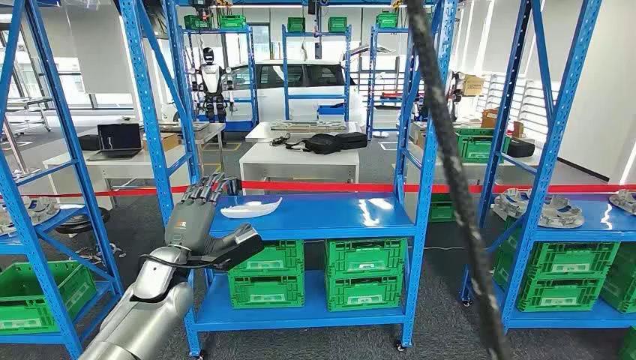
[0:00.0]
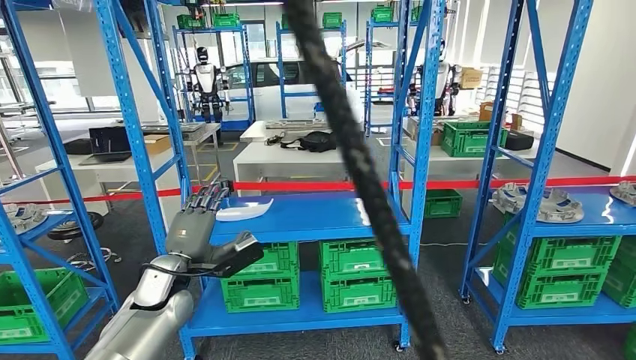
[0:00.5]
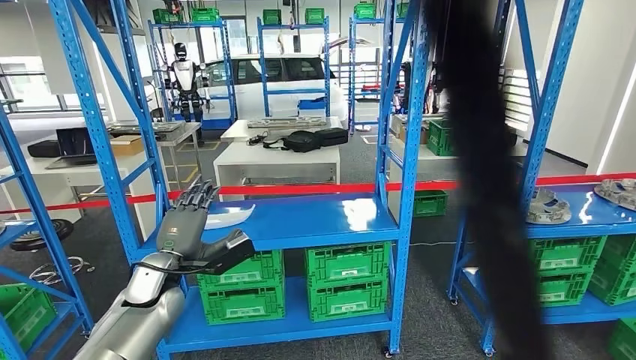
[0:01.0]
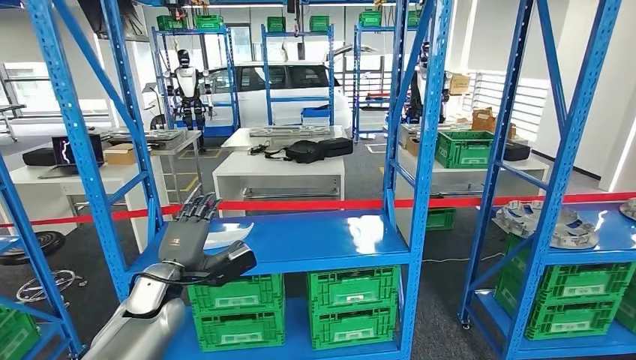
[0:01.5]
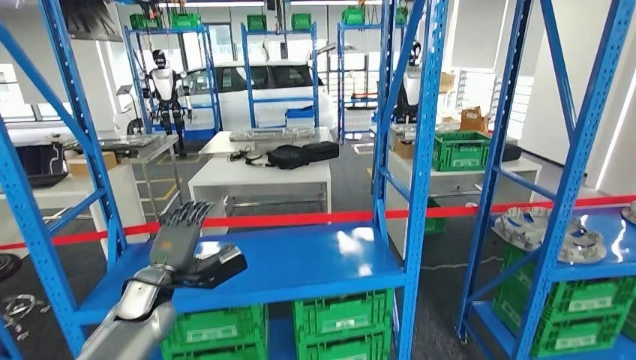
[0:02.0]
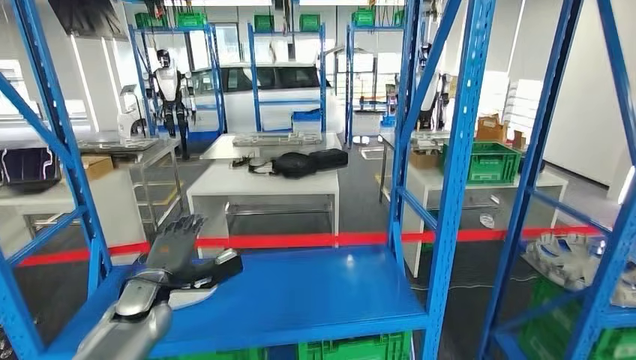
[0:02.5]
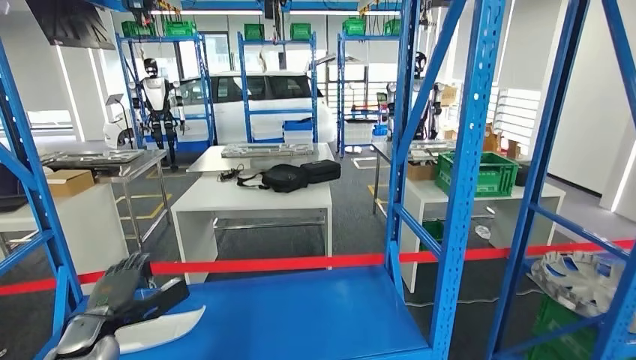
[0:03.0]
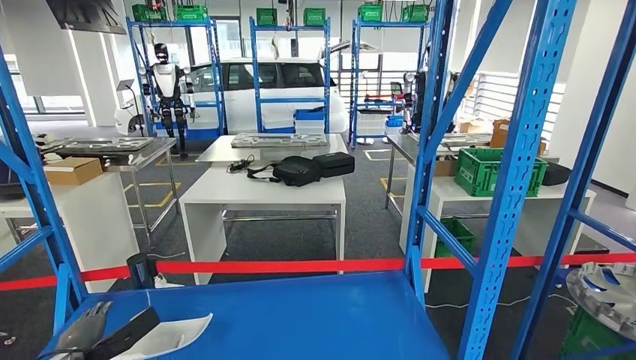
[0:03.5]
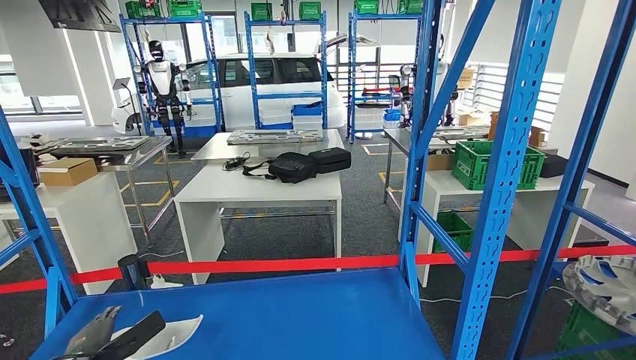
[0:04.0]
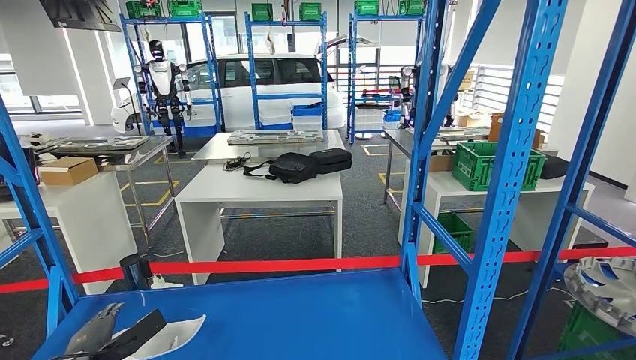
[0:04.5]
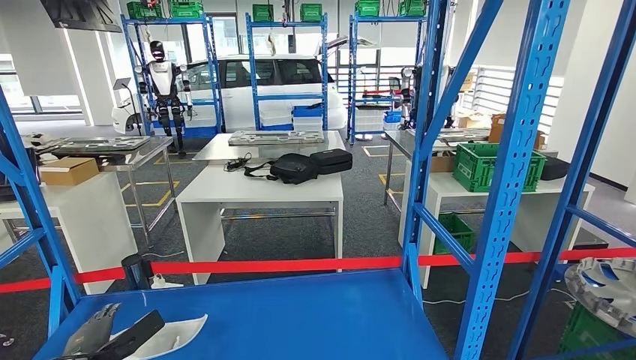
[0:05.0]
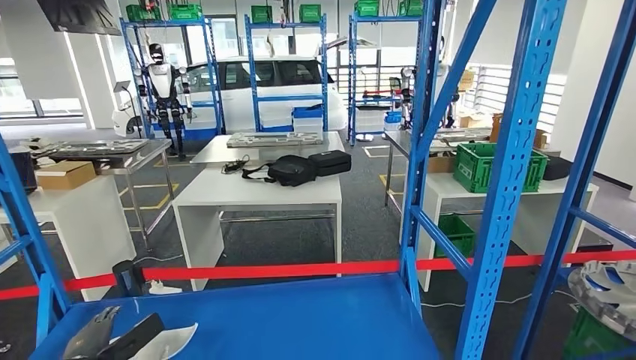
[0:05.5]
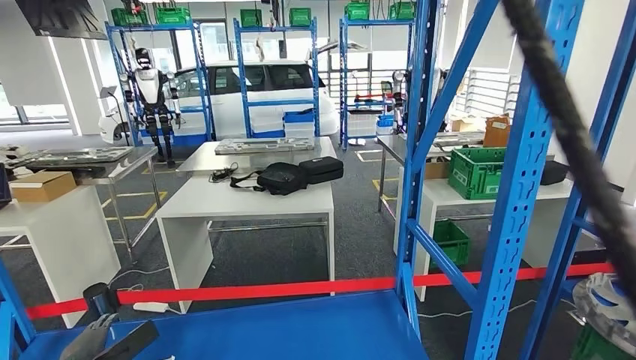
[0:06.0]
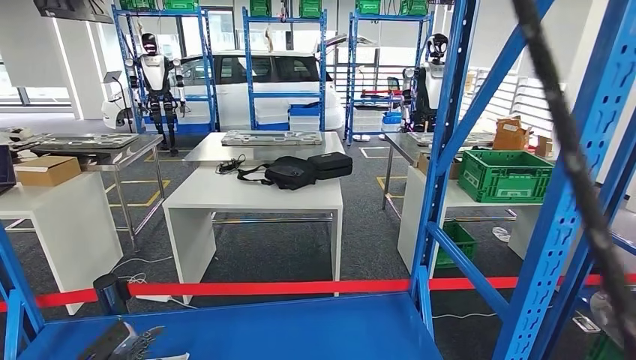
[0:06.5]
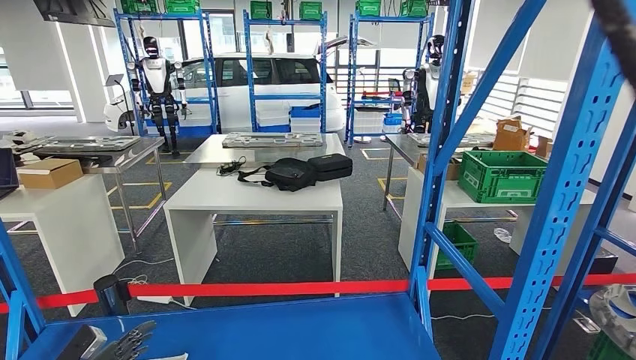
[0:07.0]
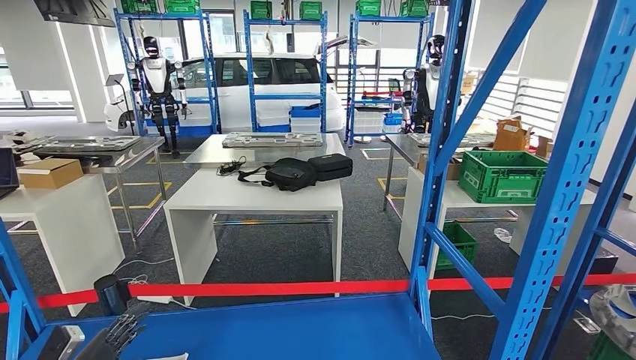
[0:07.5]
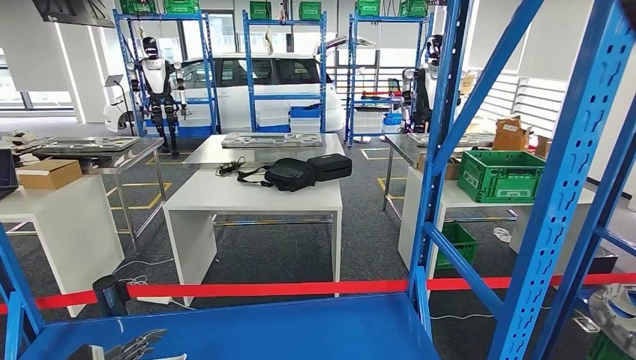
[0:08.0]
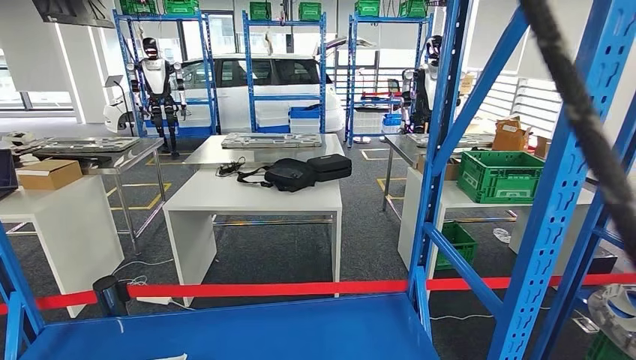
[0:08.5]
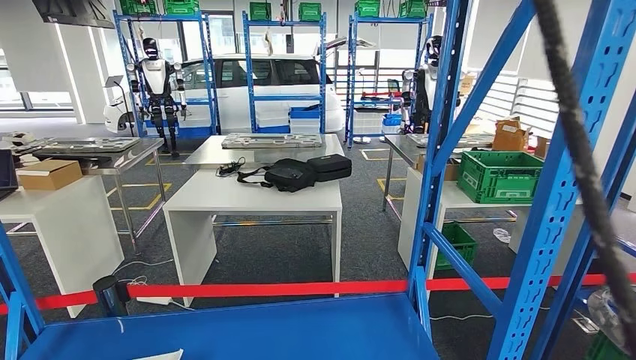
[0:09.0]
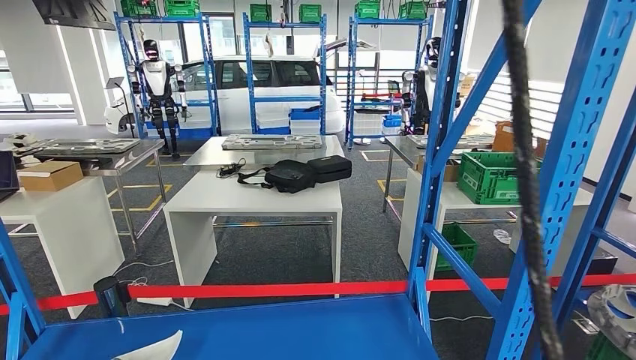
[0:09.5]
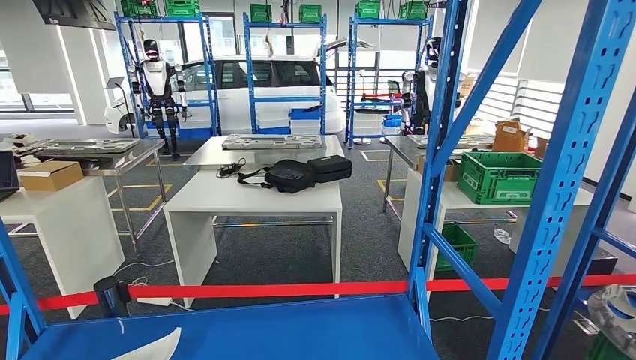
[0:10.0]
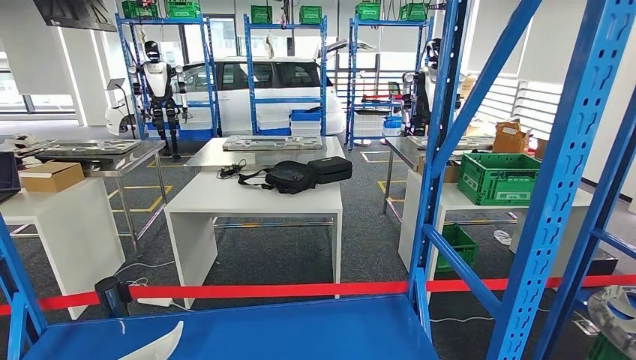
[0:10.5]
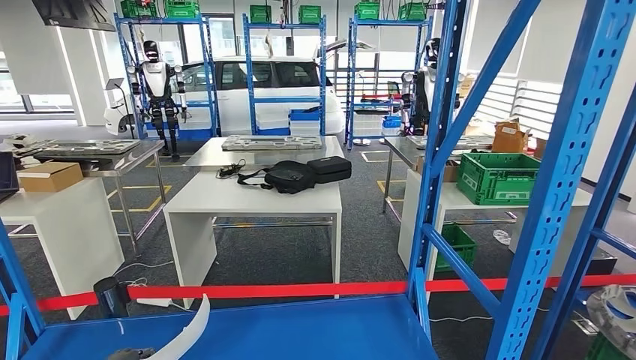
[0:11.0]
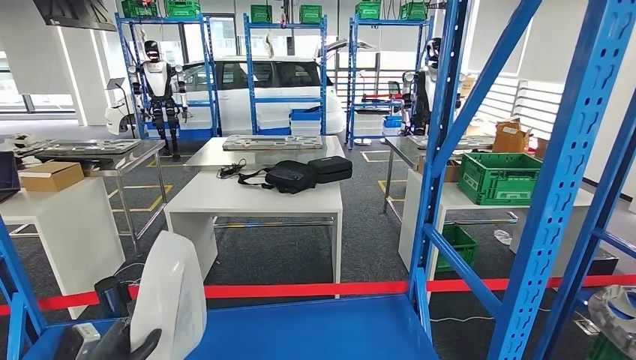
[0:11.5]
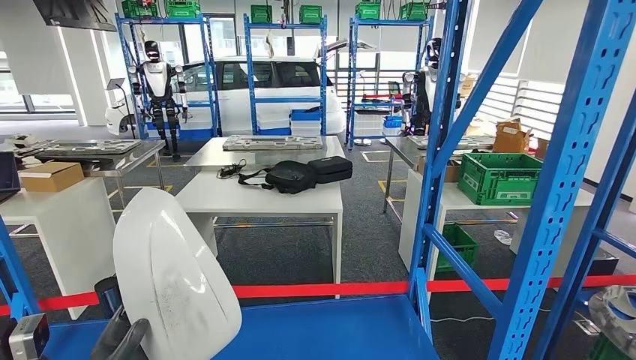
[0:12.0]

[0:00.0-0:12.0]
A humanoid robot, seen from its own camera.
0:10.0 to 0:12.0: The left hand moves to the right and upward, roughly 20 cm.

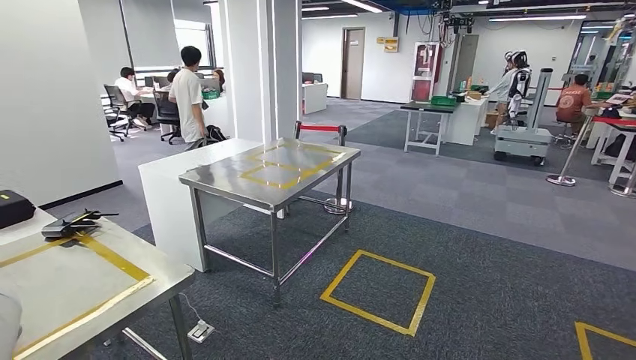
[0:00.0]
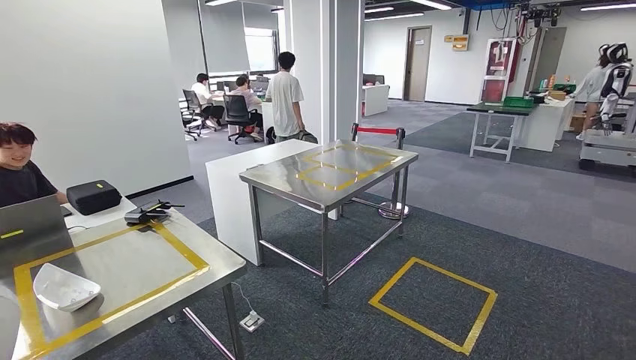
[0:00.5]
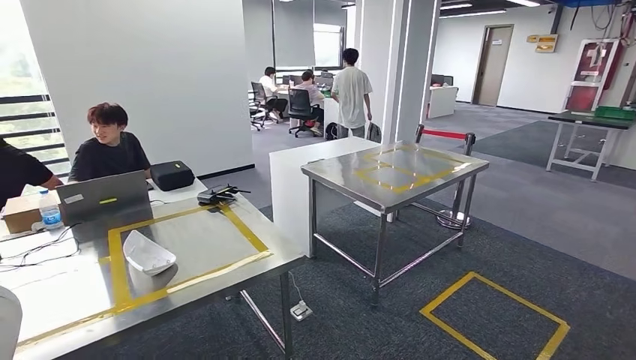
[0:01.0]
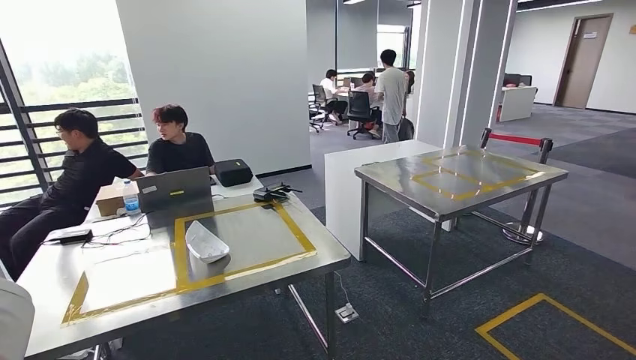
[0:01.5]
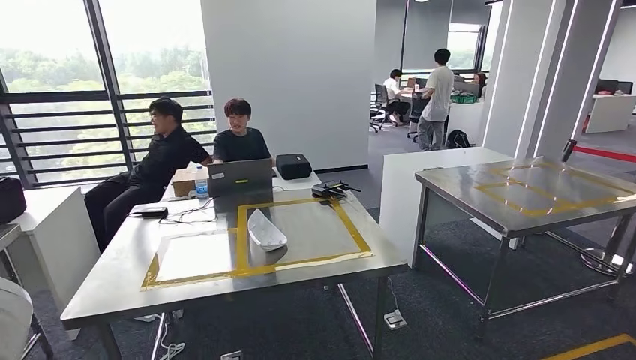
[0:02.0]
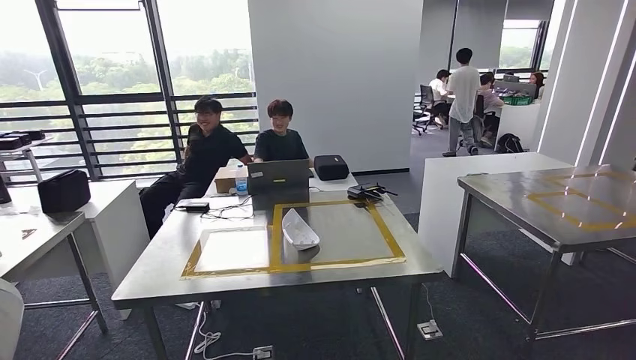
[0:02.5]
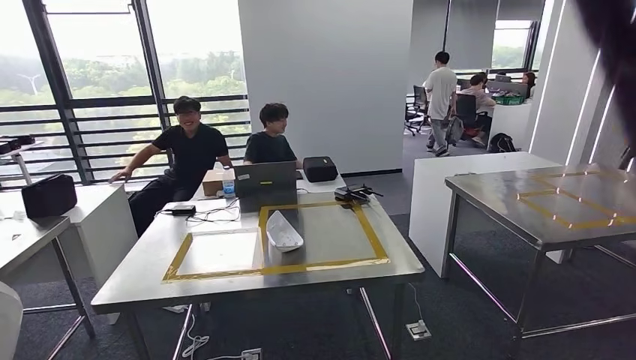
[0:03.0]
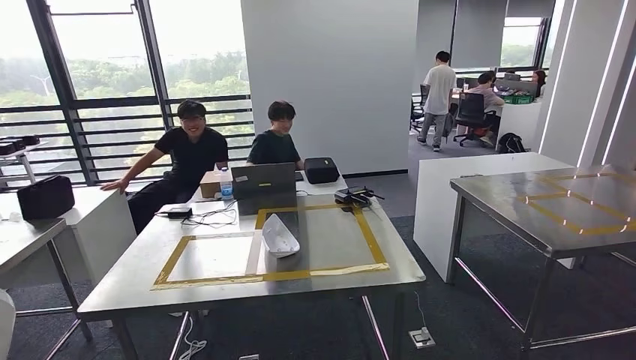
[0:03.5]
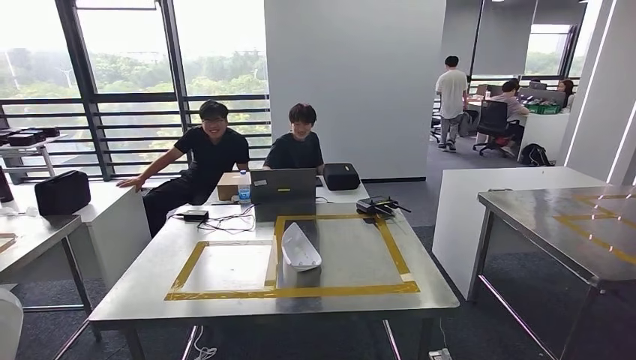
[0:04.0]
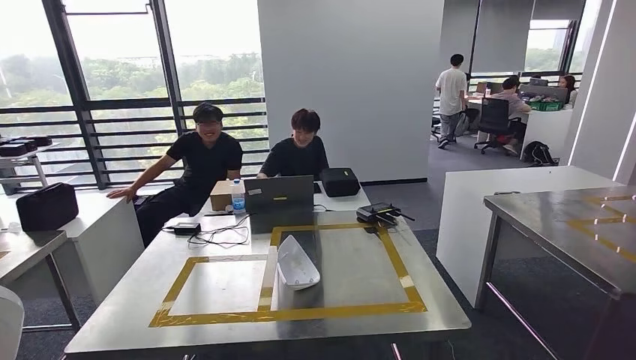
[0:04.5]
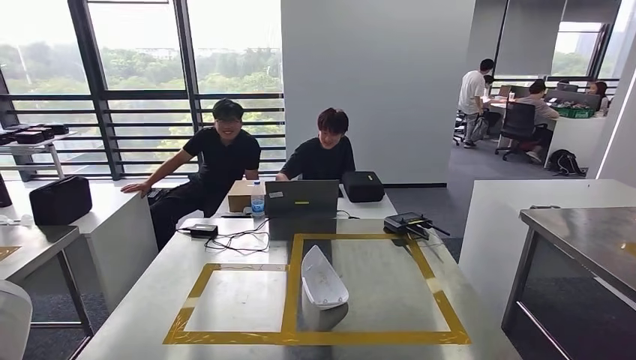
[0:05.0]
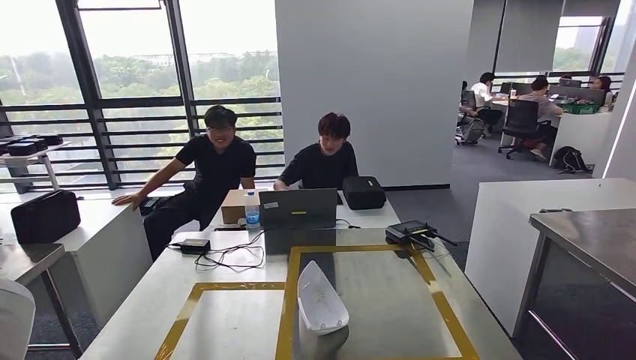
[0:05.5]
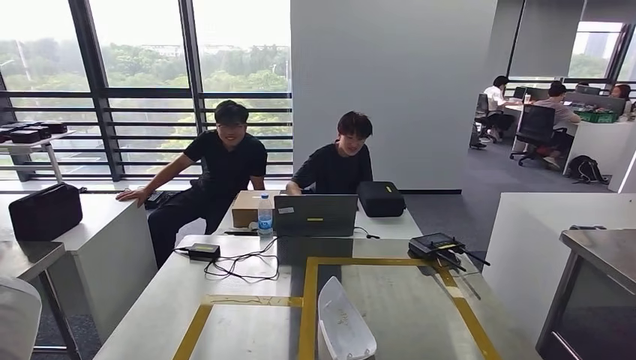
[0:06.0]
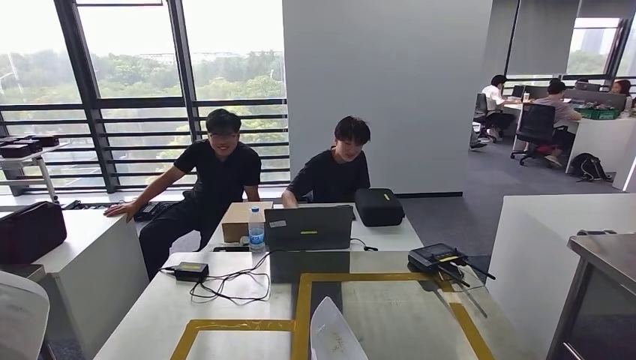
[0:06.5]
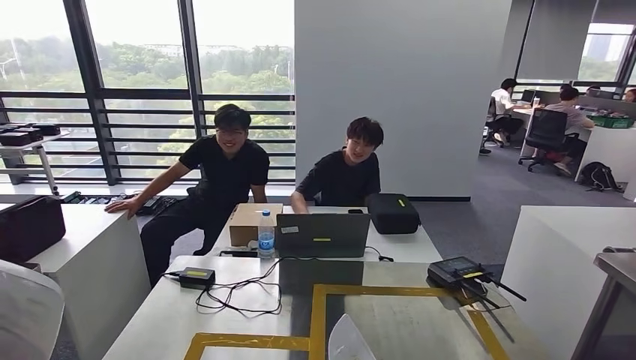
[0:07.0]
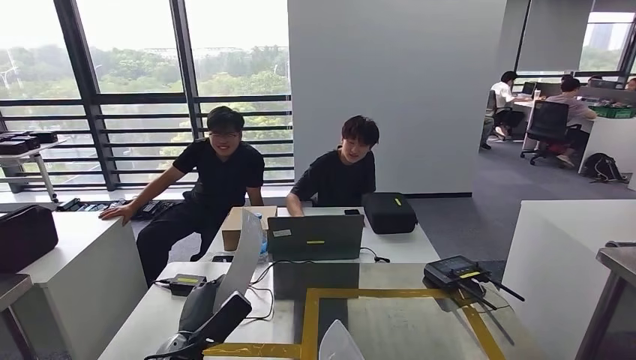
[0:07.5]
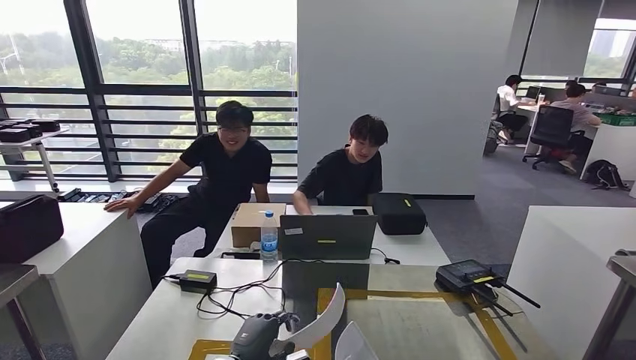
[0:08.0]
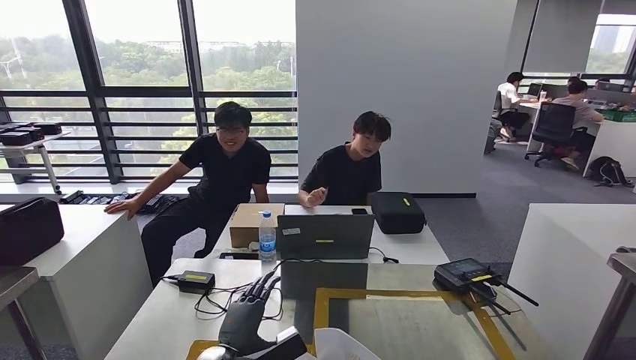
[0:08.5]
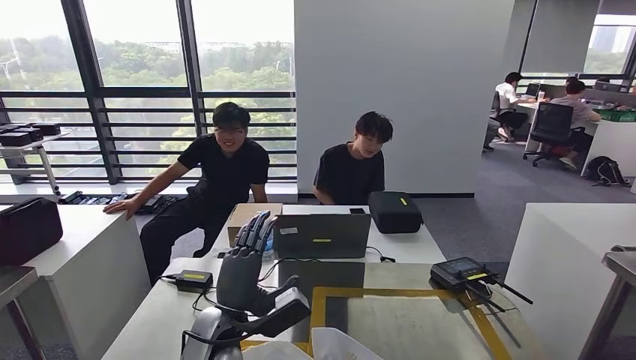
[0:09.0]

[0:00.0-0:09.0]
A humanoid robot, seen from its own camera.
Step, 0:00.0 to 0:05.5: Move the small component to the workbench.
